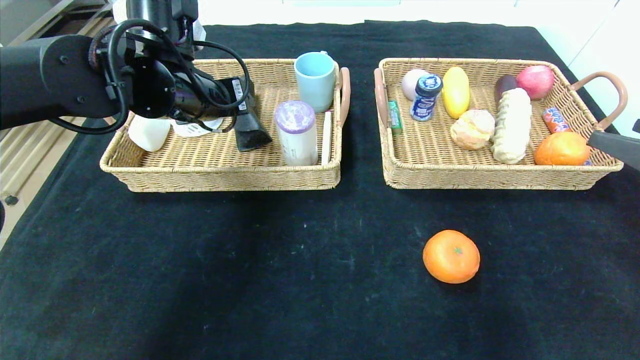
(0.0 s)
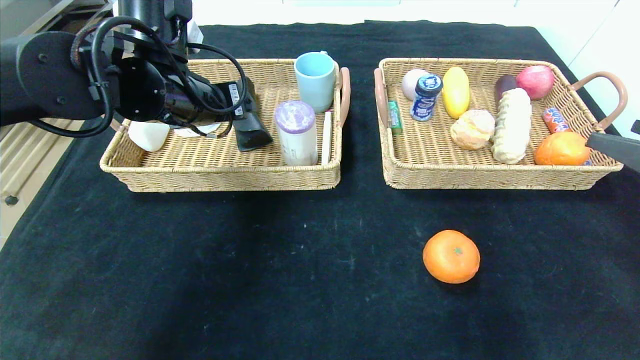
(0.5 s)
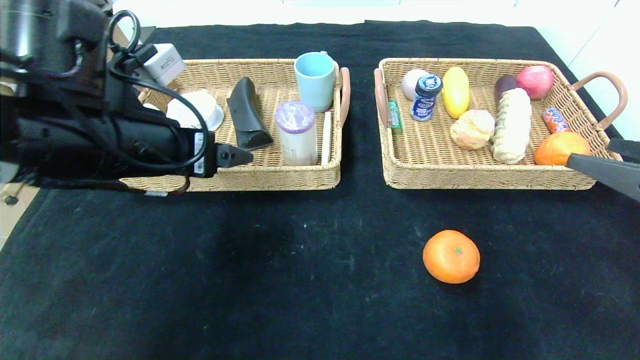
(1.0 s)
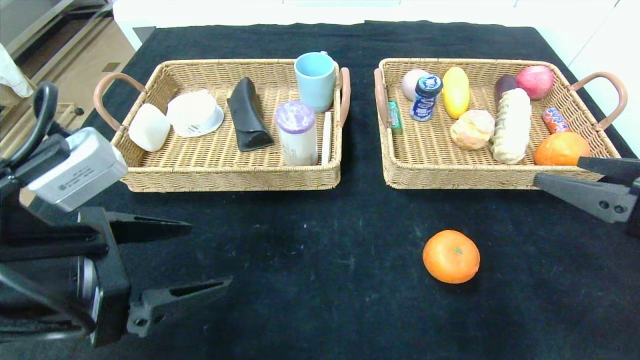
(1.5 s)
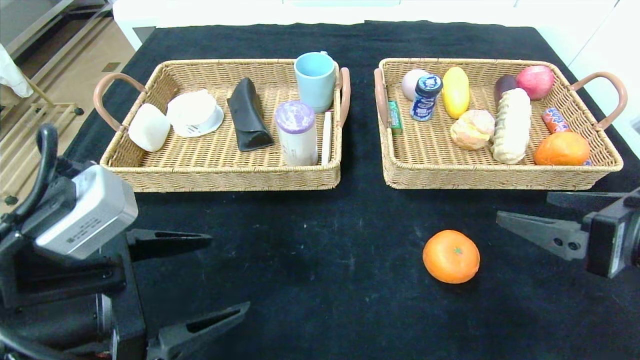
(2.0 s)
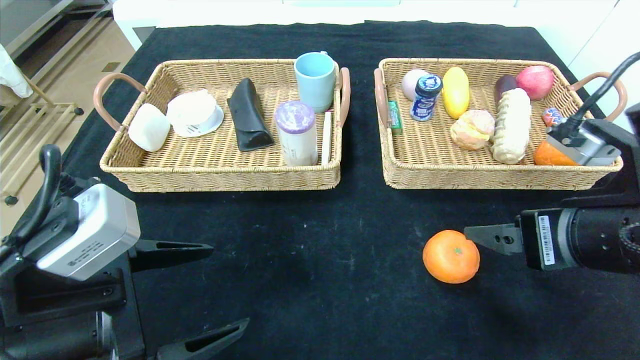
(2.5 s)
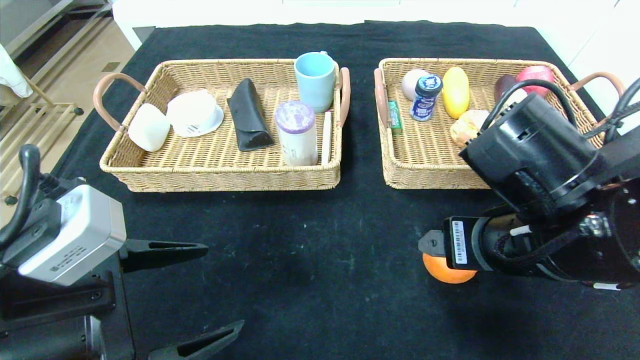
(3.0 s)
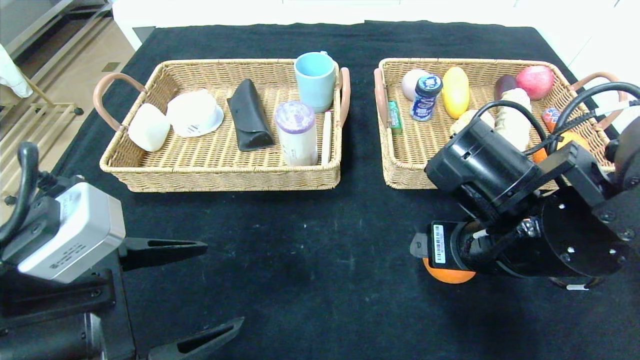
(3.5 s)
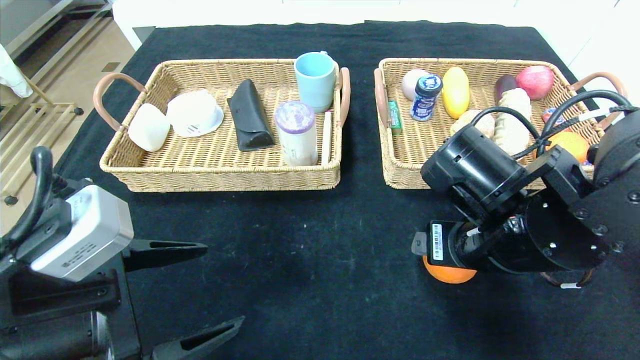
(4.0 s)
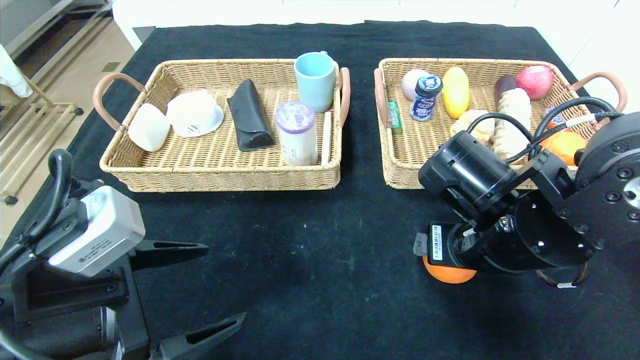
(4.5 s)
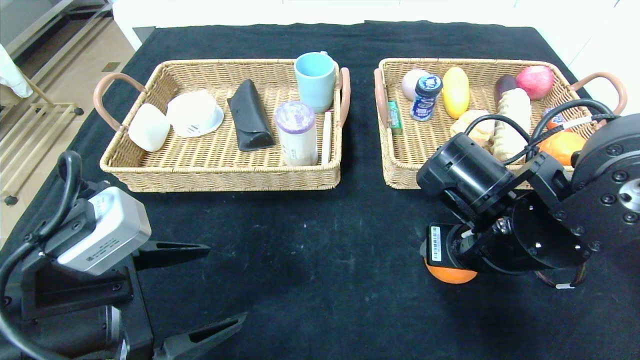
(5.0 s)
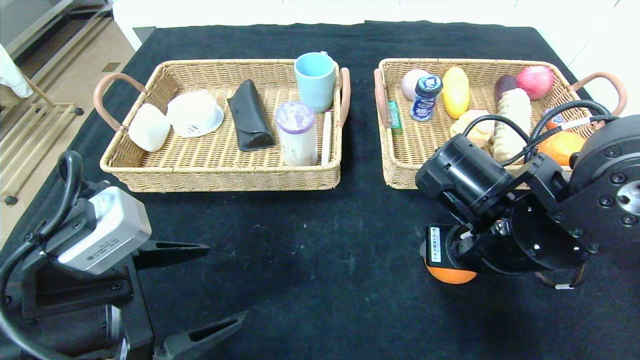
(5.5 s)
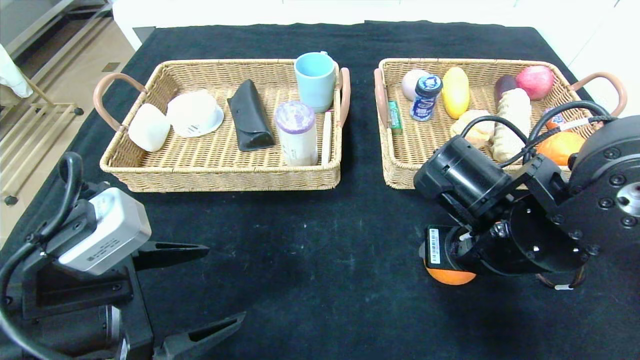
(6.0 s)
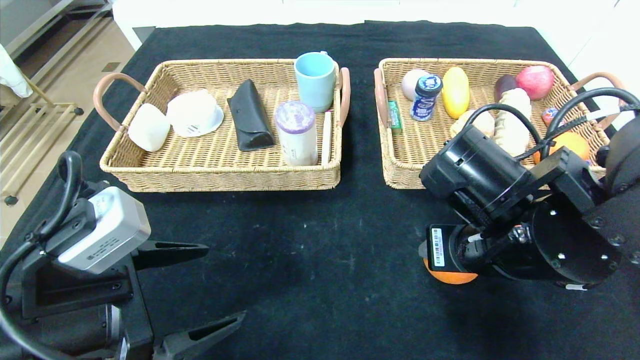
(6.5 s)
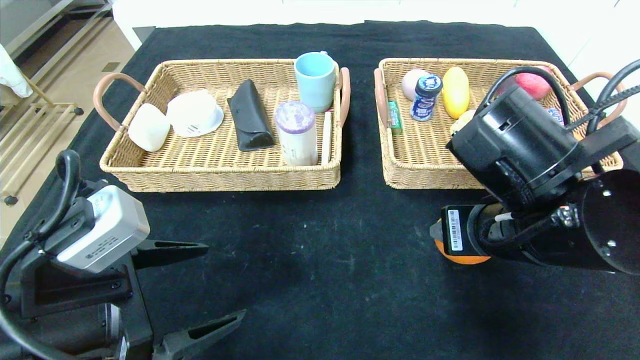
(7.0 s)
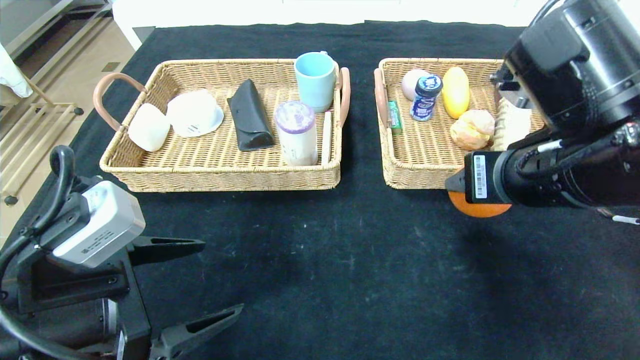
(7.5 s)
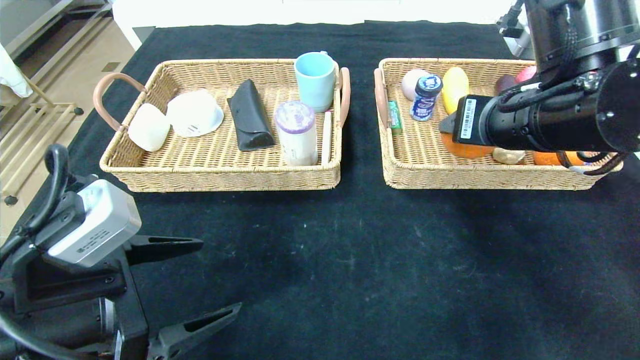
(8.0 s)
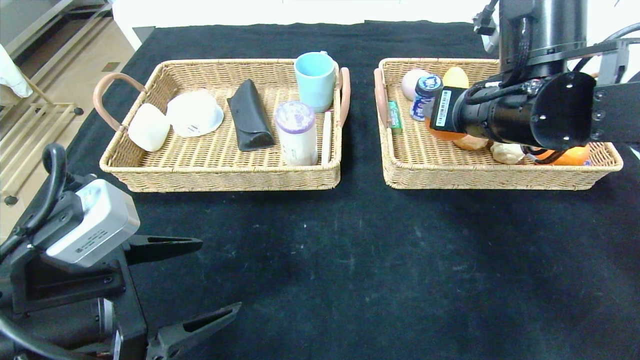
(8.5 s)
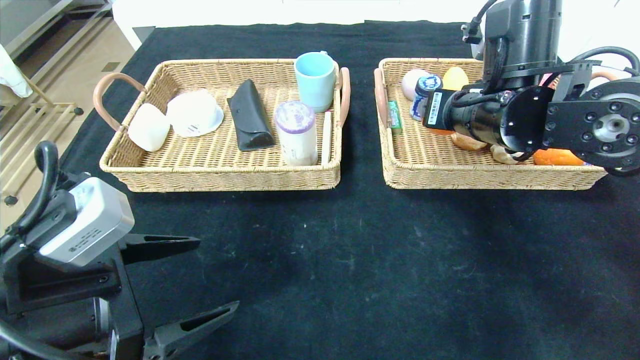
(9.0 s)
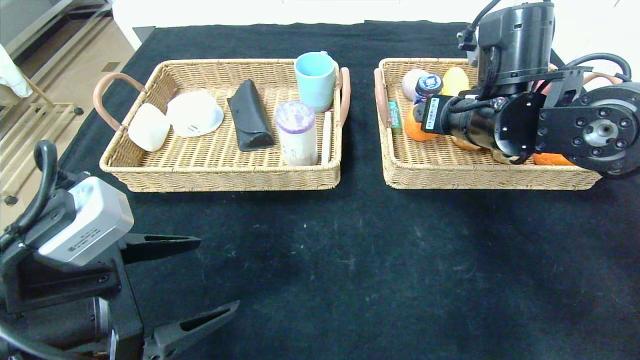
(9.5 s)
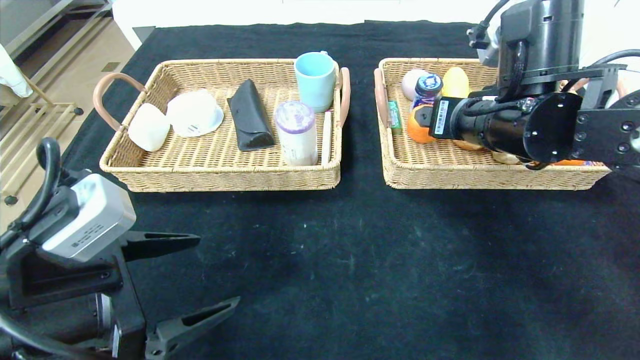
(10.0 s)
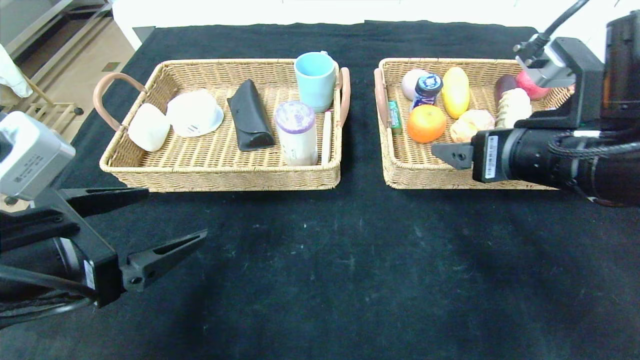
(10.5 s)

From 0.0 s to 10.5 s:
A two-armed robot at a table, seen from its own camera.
Step, from 0.5 s to 9.5 s: Grasp the orange and put it in the right basket.
From 0.0 s to 2.0 s: The right gripper moves to the left, approximately 5 cm; the left gripper travels backward and downward by about 25 cm.
From 2.0 s to 4.0 s: The right gripper shifts about 15 cm to the left and forward.
From 4.0 s to 6.5 s: The right gripper closes its fingers.
From 6.5 s to 8.5 s: The right gripper is displaced upward and forward by some 10 cm.
From 8.5 s to 10.5 s: The right gripper is displaced backward by some 5 cm.

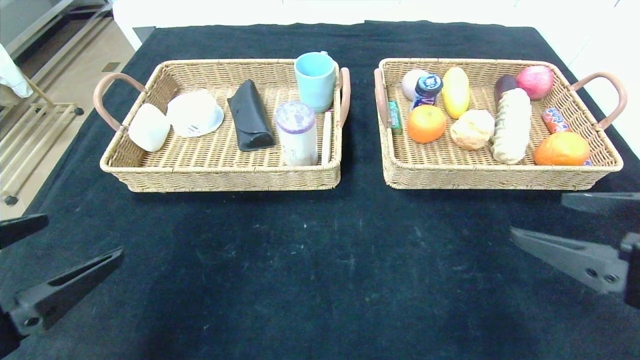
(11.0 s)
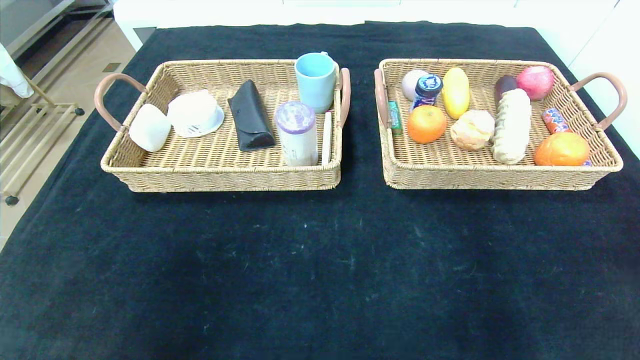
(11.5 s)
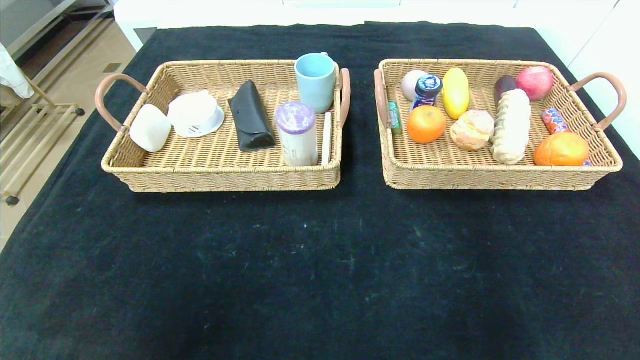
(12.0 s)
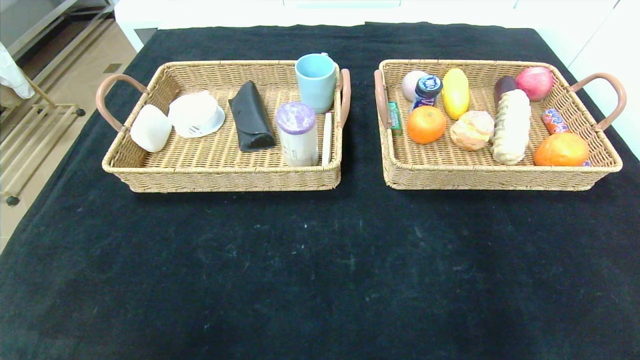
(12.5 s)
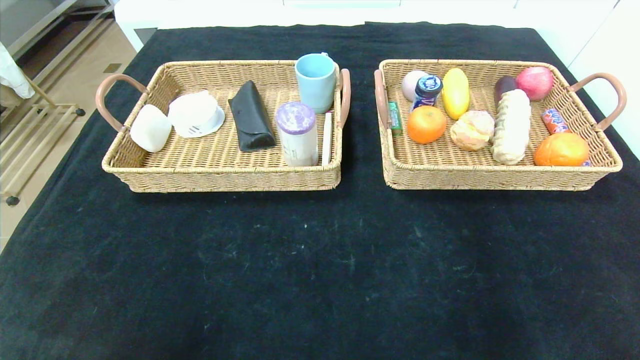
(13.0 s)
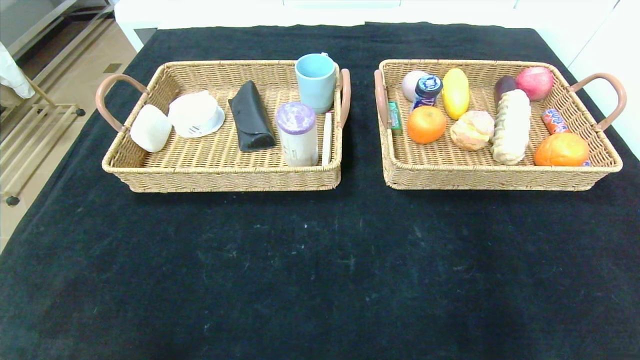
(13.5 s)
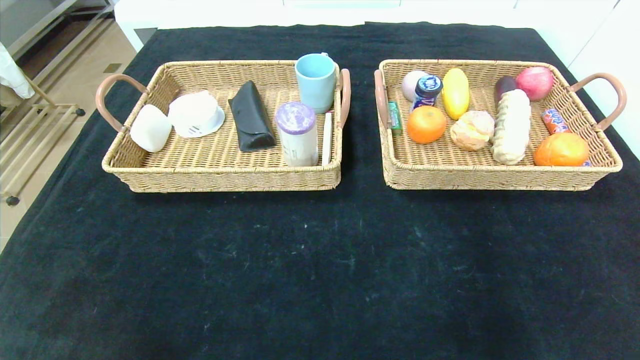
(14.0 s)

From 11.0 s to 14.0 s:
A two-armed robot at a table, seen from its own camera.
From 11.0 s to 12.5 s: The left gripper moves backward, approximately 20 cm, while the right gripper shifts approximately 25 cm backward and downward.

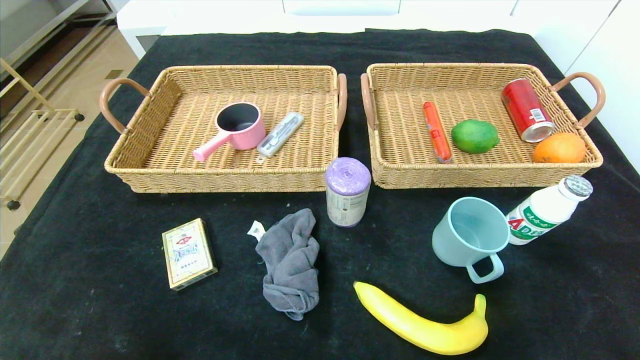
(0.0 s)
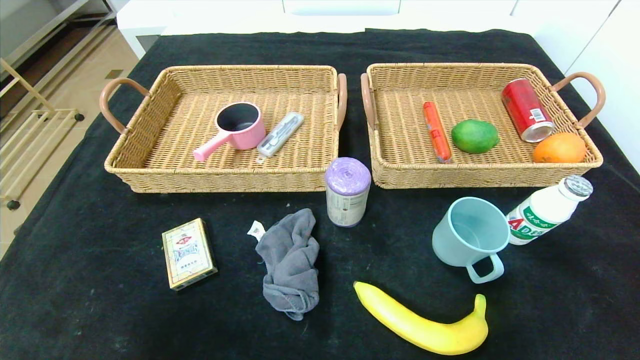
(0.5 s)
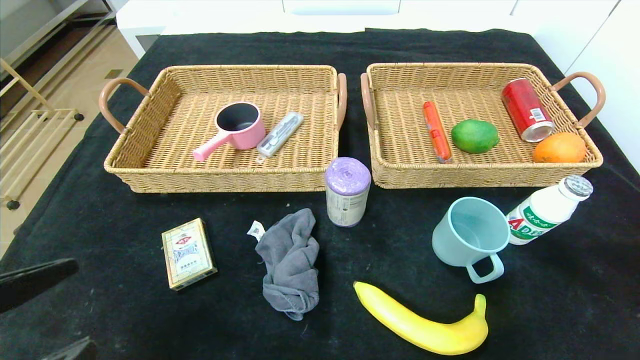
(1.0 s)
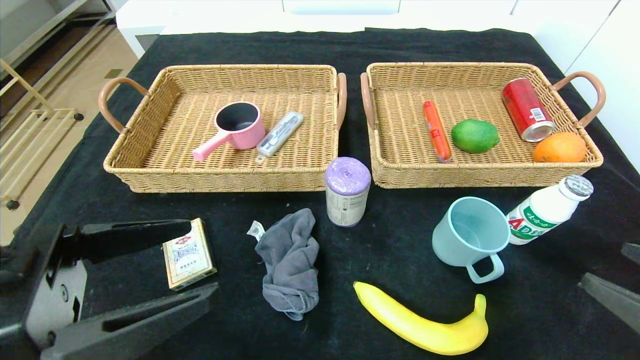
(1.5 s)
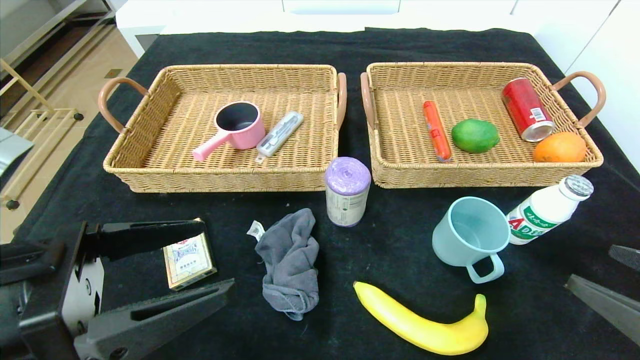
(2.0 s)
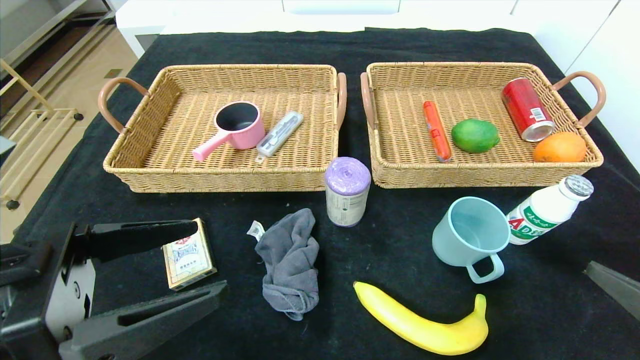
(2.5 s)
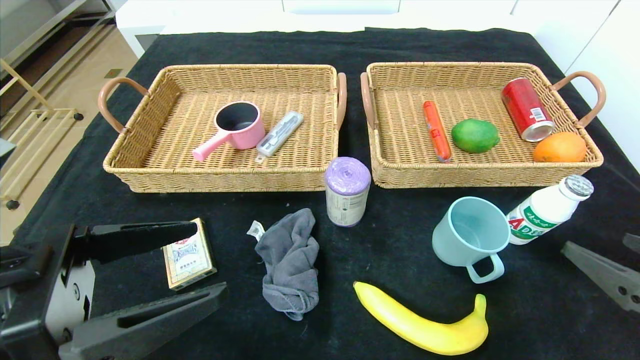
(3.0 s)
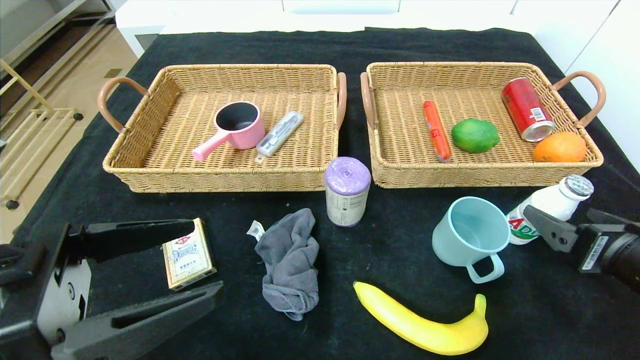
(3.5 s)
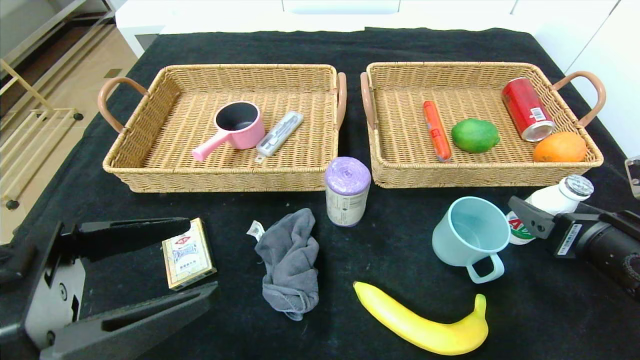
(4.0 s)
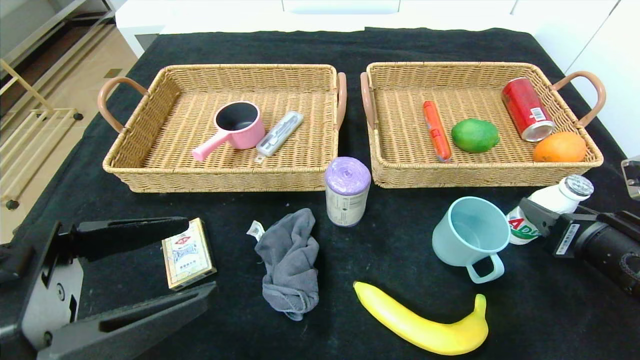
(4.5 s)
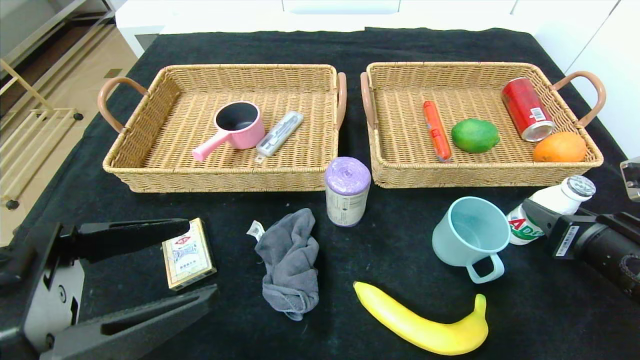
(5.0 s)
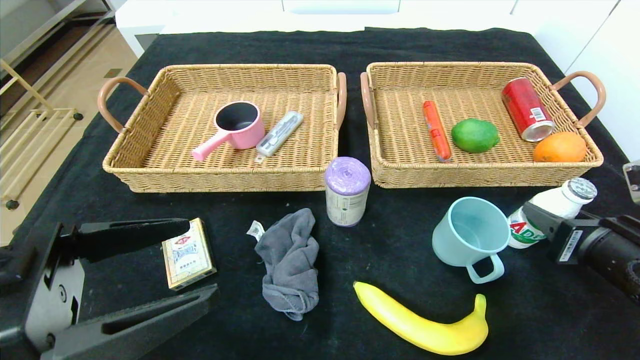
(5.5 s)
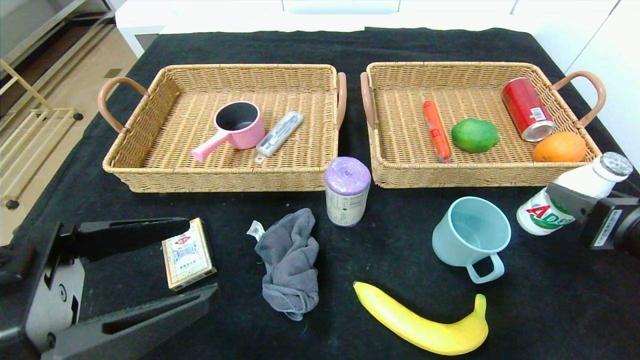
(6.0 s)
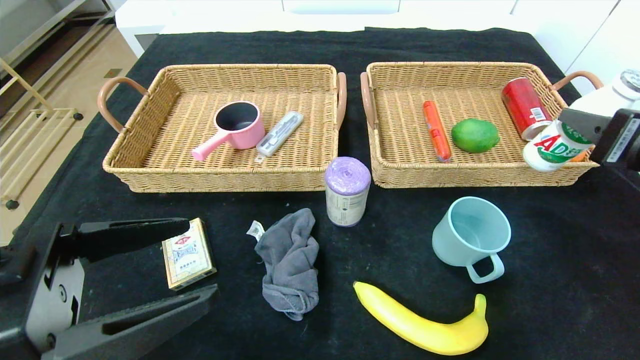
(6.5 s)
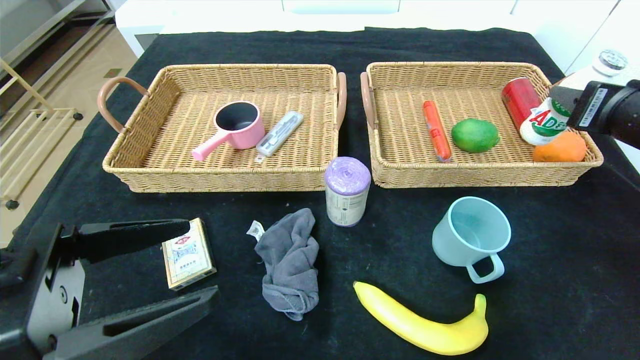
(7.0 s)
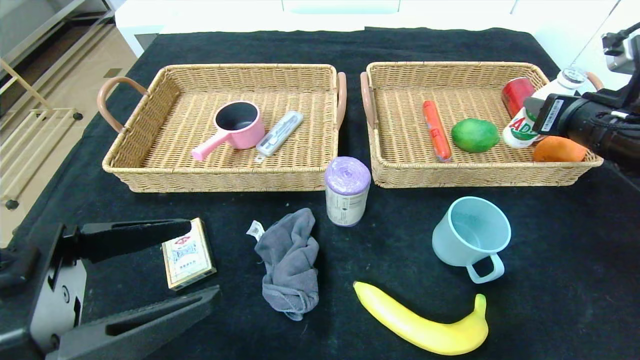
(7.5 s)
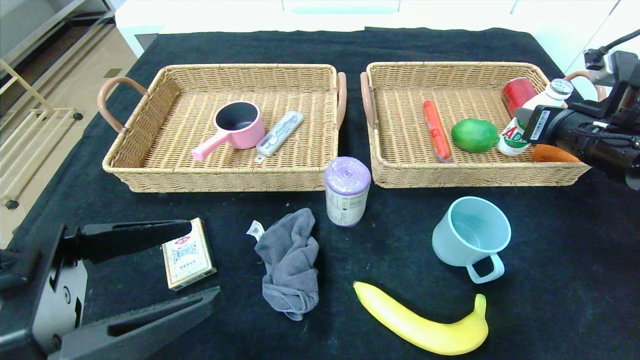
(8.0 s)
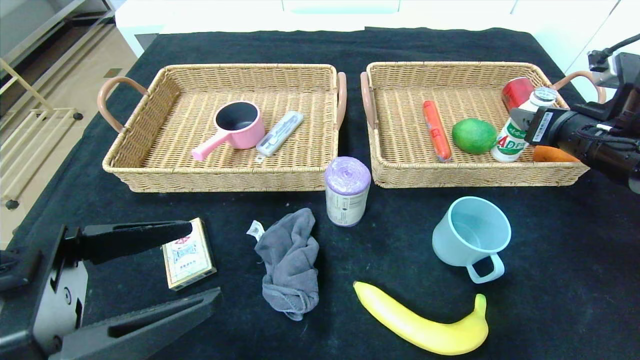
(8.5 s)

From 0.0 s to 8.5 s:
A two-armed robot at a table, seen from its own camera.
From 0.0 s to 2.0 s: The left gripper shifts approximately 15 cm forward, to the right and upward. The right gripper travels forward by approximately 10 cm.
From 2.0 s to 4.0 s: The right gripper moves forward, roughly 10 cm.
From 4.0 s to 6.5 s: The right gripper travels upward by roughly 10 cm, and closes its fingers.
From 6.5 s to 8.5 s: The right gripper is displaced forward by roughly 10 cm.
